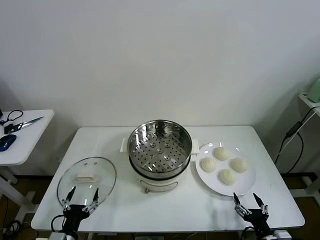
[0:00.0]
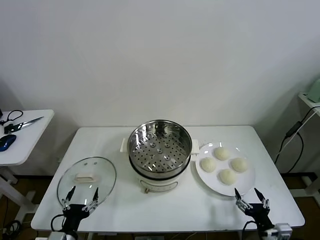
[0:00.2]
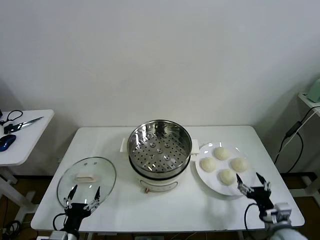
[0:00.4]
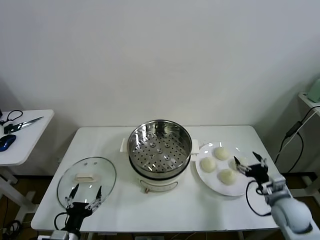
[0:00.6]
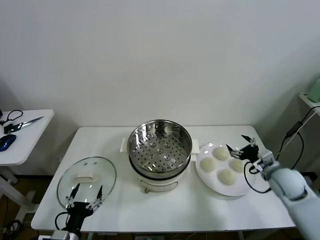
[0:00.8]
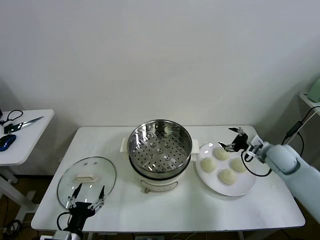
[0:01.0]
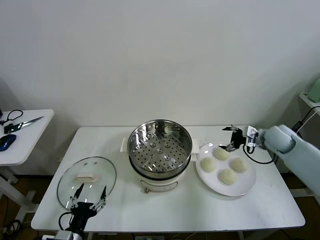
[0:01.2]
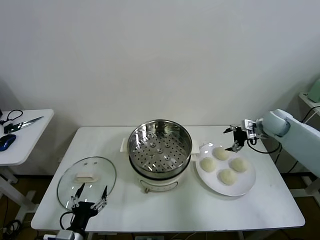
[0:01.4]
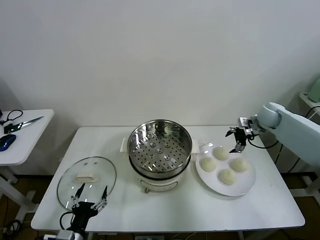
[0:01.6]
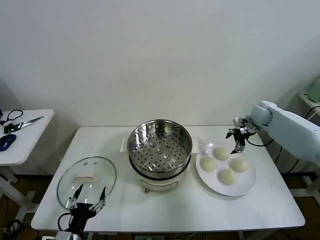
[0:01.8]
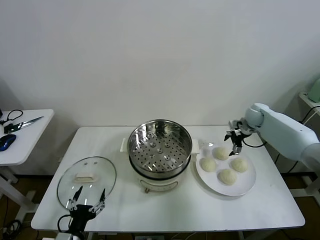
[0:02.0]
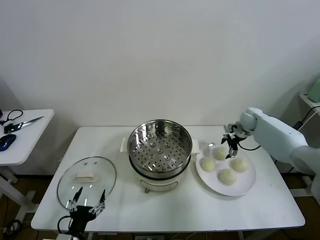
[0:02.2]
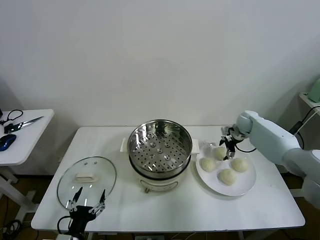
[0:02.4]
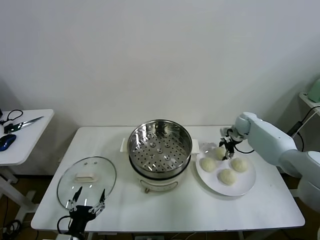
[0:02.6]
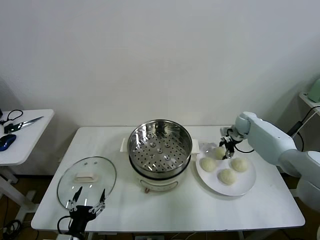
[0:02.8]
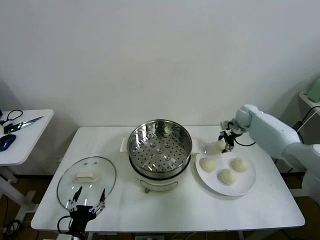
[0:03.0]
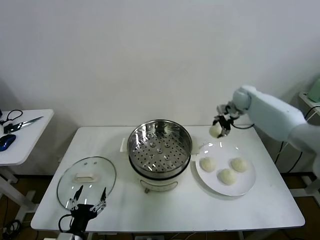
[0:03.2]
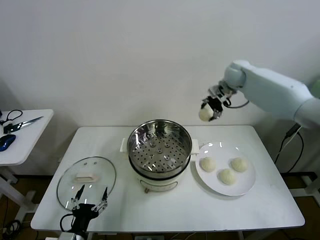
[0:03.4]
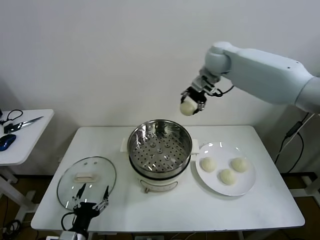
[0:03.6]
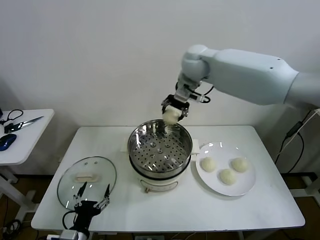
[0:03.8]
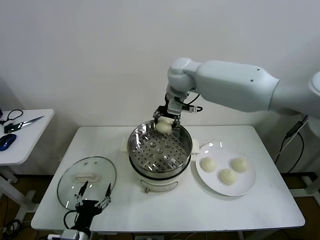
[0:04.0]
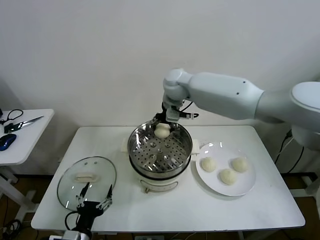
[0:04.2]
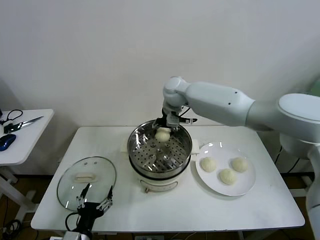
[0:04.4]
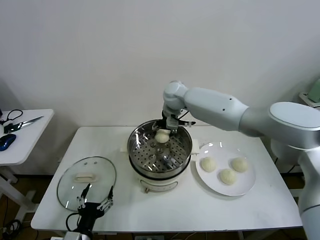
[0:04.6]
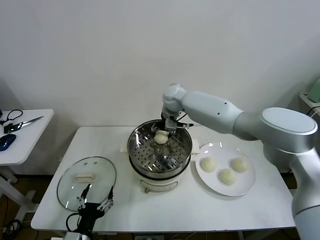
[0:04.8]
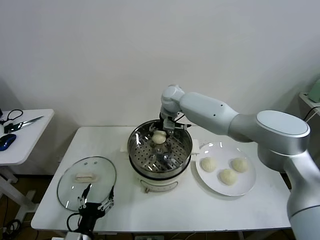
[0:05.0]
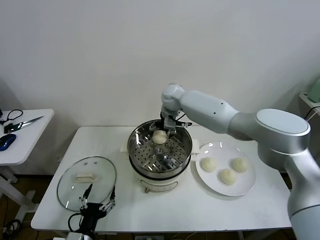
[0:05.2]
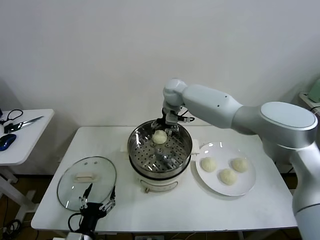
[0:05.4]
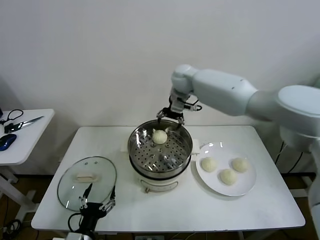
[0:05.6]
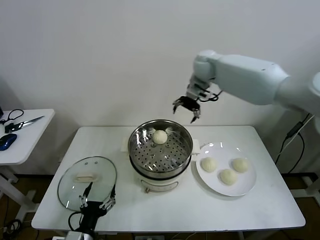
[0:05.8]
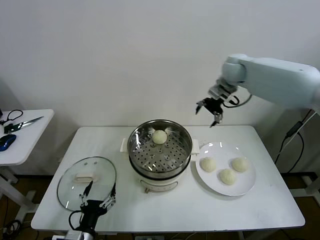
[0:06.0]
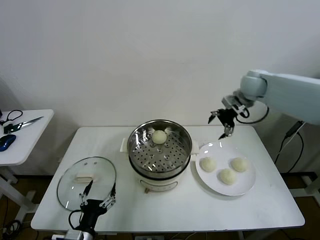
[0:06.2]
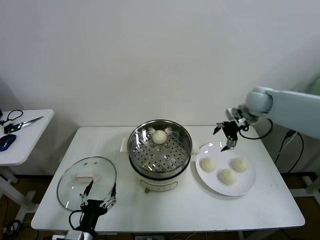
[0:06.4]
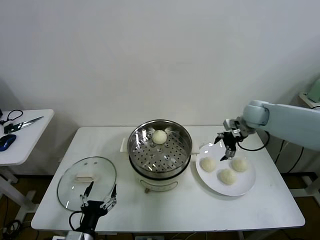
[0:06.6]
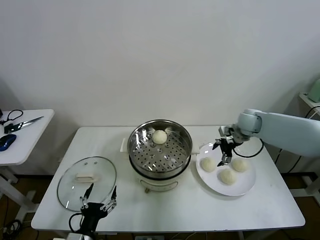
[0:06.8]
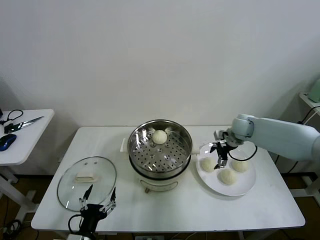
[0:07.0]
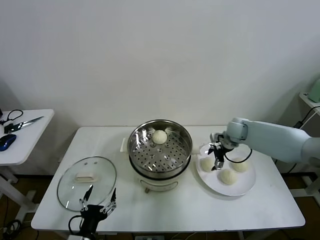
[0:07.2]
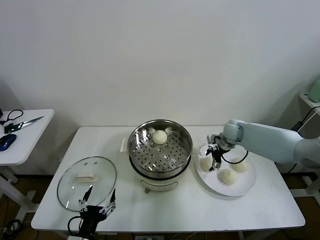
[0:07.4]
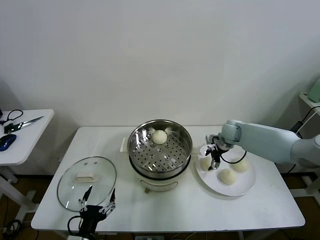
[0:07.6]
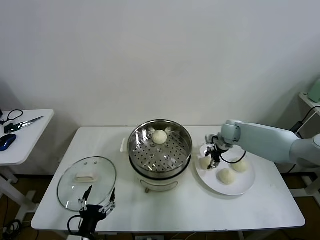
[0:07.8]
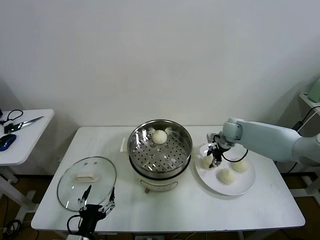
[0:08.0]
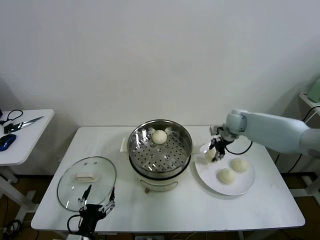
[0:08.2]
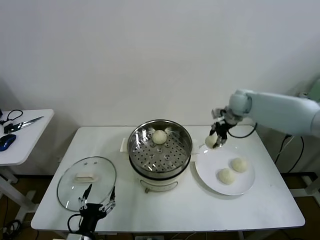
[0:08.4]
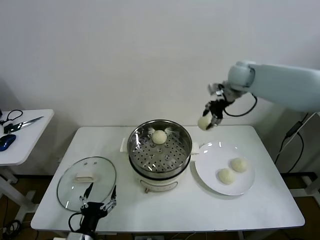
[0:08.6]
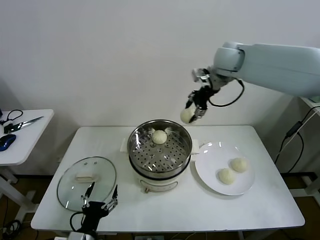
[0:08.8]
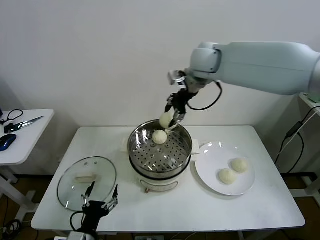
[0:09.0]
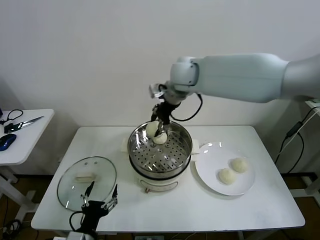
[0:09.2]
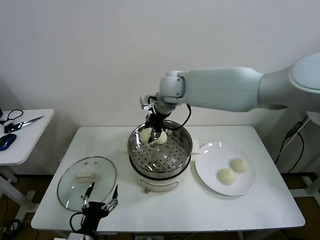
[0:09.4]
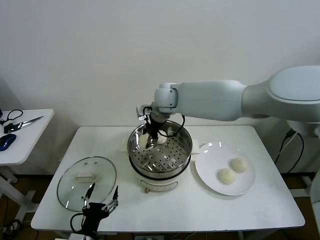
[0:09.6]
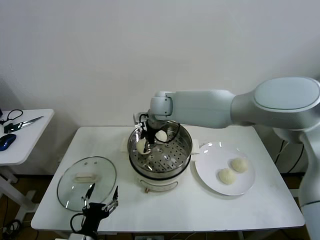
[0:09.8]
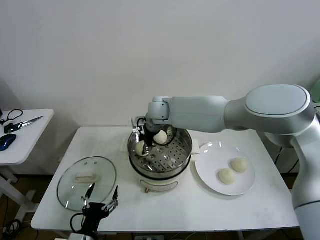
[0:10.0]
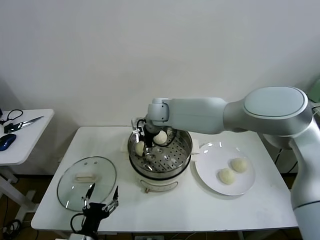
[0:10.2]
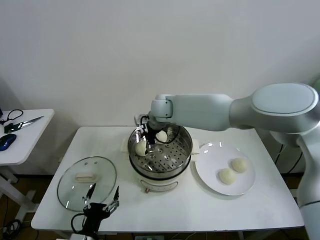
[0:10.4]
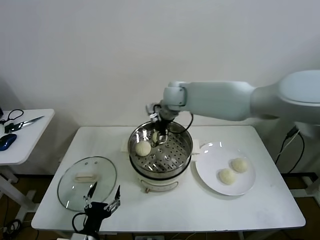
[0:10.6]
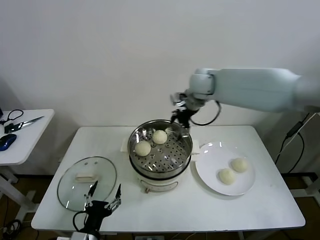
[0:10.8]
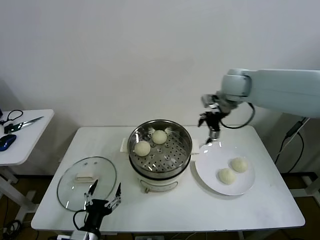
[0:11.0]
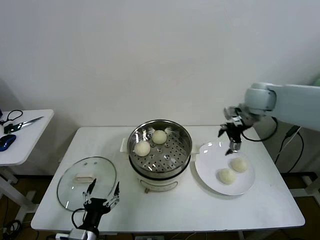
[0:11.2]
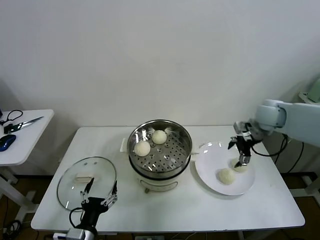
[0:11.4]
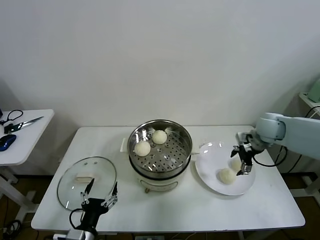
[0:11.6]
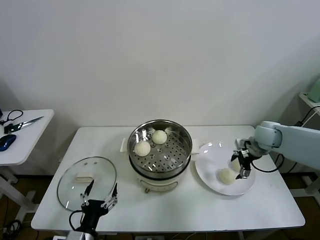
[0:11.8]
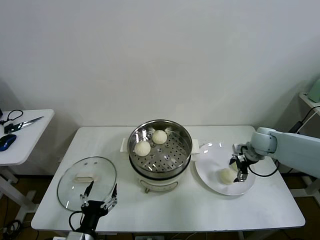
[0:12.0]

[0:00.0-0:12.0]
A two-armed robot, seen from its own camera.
Task of the whole recording: take steamed baozi put them in steamer then cover it.
Step, 0:00.0 to 0:02.6: Grasp the baozi in the plate with right gripper.
Step, 0:02.8 to 0:05.0: Place the baozi on the steamer with right gripper.
Step, 0:05.4 to 0:07.8: Grasp the baozi in the plate with right gripper.
Step, 0:08.0 to 0:10.4: Place the baozi on the steamer with right gripper.
0:01.6 to 0:03.0: The right gripper travels to the left and forward by roughly 10 cm, moves approximately 10 cm downward and comes back, and closes its fingers.
0:03.0 to 0:04.4: The right gripper heads to the left, covering approximately 30 cm.
0:04.4 to 0:06.0: The right gripper is displaced to the right by roughly 25 cm, and opens its fingers.
0:06.0 to 0:07.6: The right gripper heads downward, covering roughly 25 cm, and closes.
0:07.6 to 0:09.0: The right gripper is displaced upward and to the left by about 35 cm, and closes.
0:09.0 to 0:10.4: The right gripper shifts roughly 15 cm downward and to the left, and opens its fingers.
0:10.4 to 0:12.0: The right gripper moves to the right, approximately 35 cm.

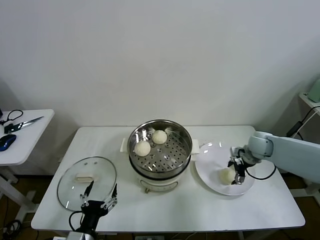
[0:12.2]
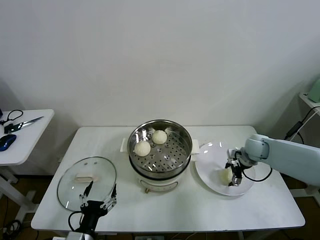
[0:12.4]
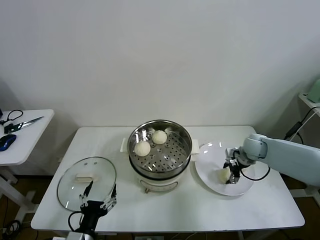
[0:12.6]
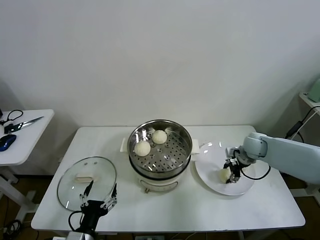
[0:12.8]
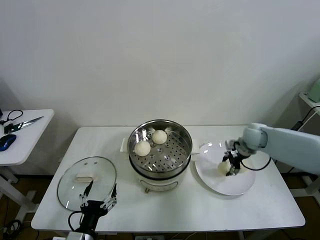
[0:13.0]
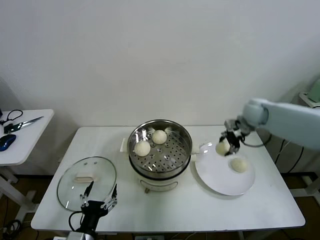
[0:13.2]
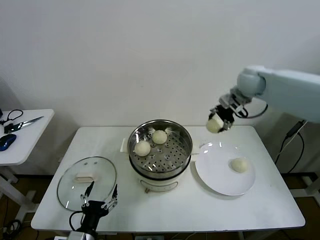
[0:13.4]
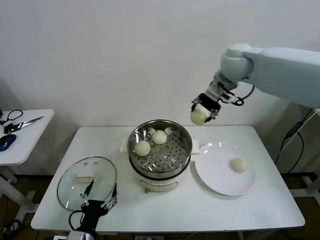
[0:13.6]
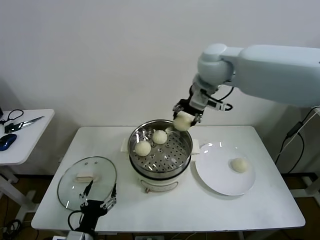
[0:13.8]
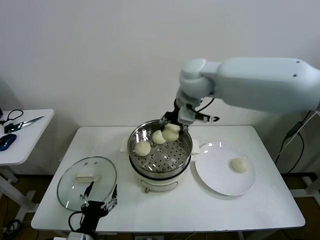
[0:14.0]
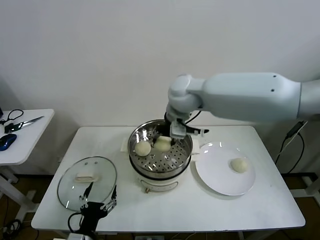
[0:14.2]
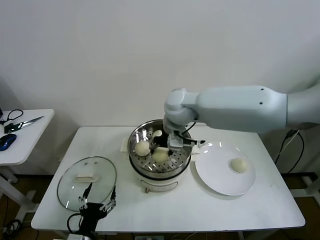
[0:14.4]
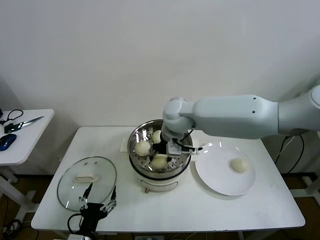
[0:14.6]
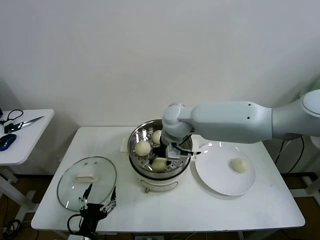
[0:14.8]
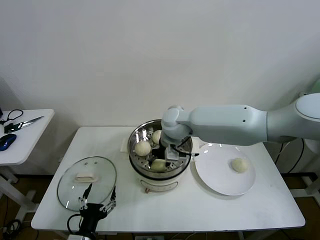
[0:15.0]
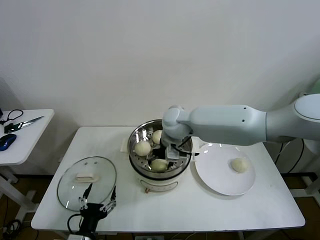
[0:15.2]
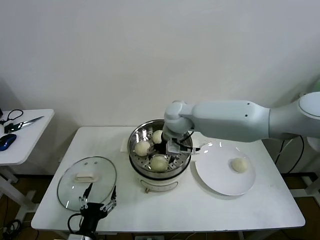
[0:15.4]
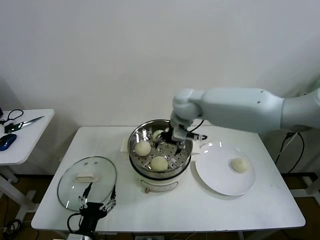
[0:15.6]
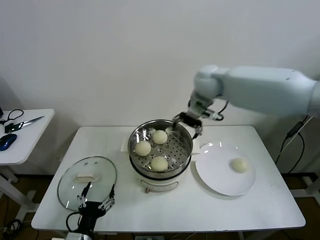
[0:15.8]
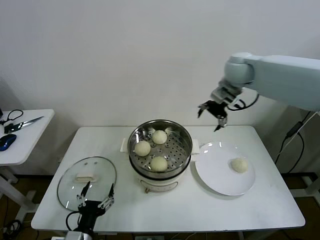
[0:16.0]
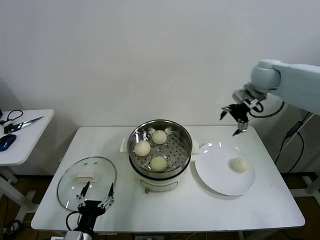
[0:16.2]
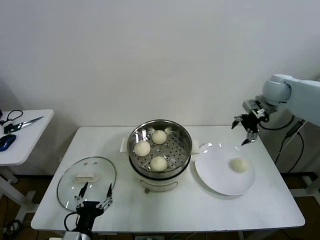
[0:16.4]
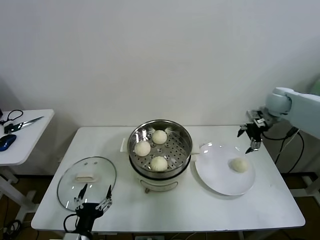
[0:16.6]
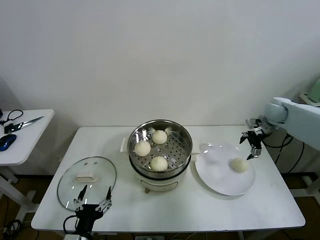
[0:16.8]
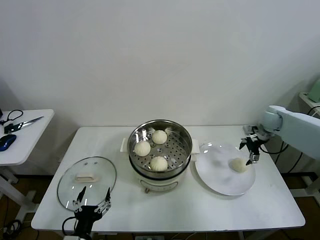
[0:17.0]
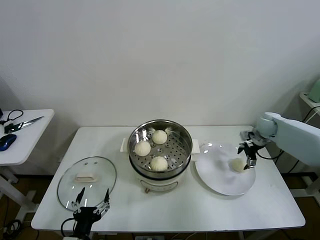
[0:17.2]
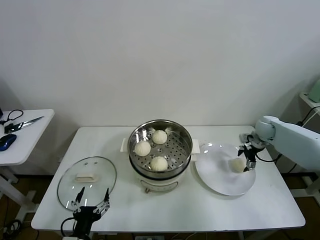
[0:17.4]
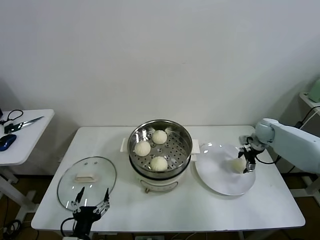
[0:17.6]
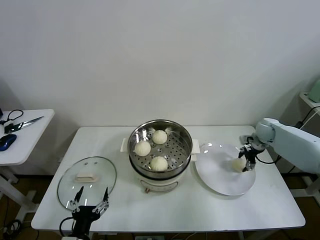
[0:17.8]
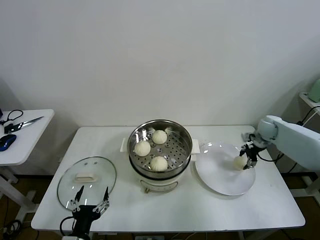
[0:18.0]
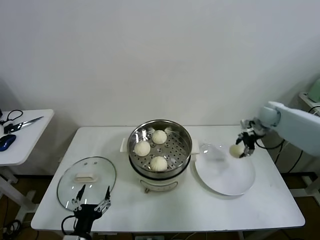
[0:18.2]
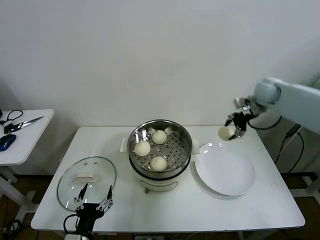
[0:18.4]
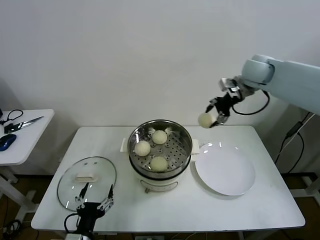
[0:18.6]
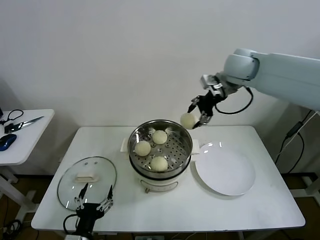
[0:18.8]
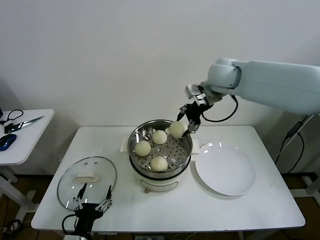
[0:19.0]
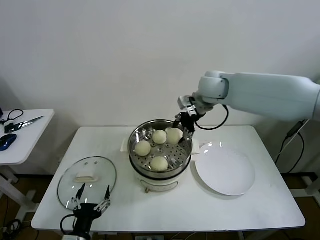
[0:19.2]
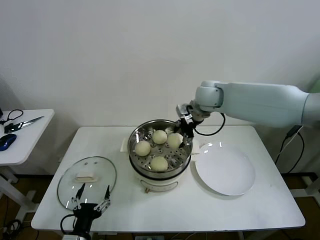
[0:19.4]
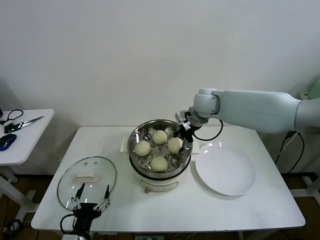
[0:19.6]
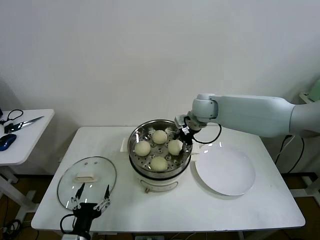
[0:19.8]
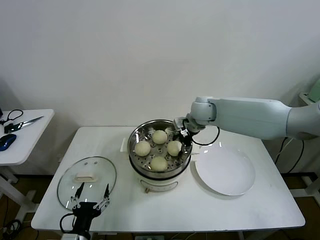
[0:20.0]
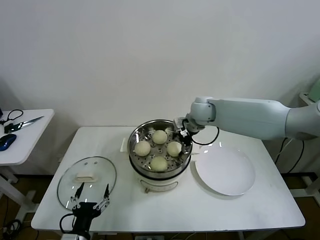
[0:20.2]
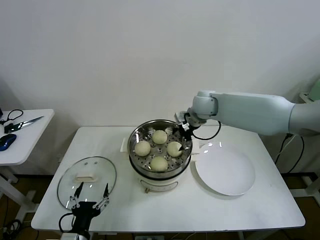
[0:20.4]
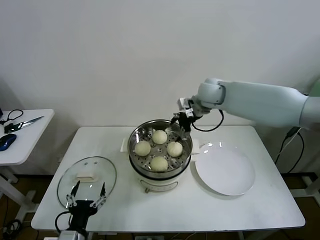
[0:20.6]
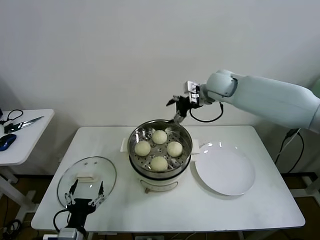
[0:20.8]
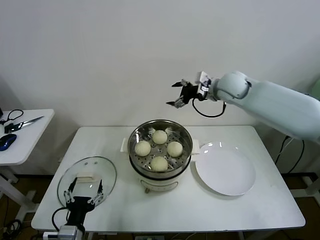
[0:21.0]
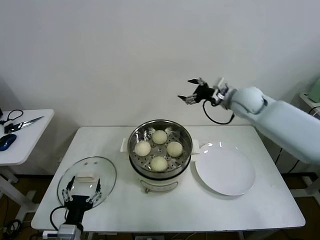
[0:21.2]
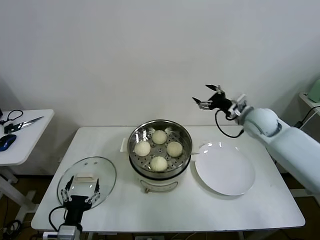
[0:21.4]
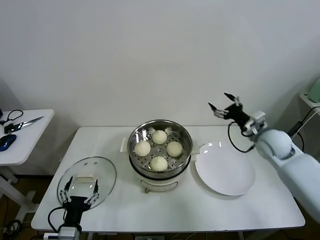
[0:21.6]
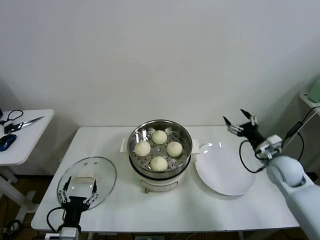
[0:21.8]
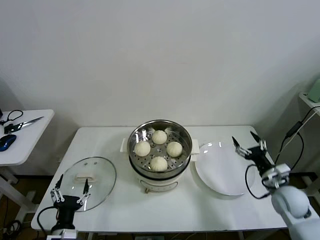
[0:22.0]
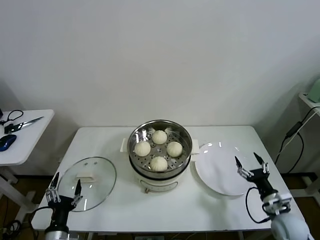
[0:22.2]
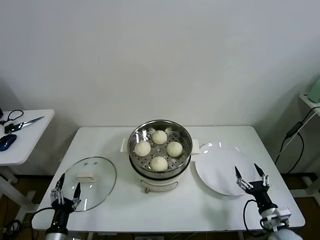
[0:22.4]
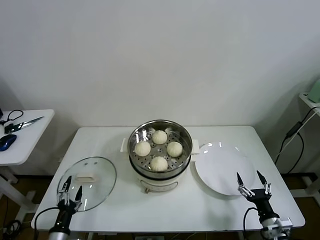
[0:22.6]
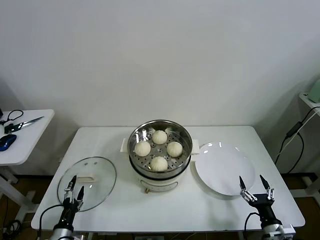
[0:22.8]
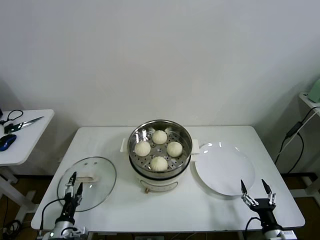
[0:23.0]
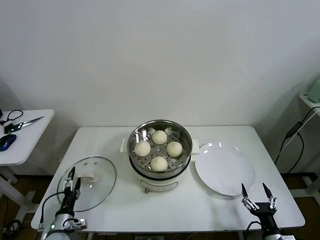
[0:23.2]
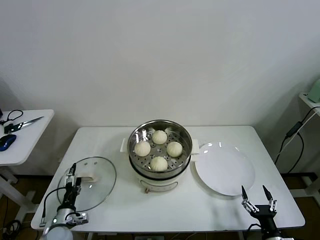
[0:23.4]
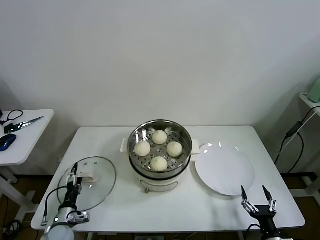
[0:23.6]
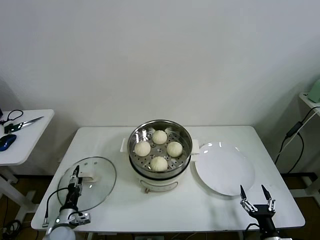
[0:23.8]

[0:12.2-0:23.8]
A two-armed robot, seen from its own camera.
Task of the whole recording: take steamed baozi put them in steamer then cover it.
Step, 0:12.8 to 0:15.2: Place the baozi on the steamer with right gripper.
Step, 0:15.4 to 0:17.8: Grasp the baozi in the plate with right gripper.
Step, 0:18.0 to 0:20.2: Place the baozi on the steamer with right gripper.
0:12.2 to 0:13.6: The right gripper moves upward and to the left, roughly 35 cm, and closes its fingers.
0:13.6 to 0:15.0: The right gripper travels downward and to the left by approximately 25 cm.
0:15.0 to 0:16.6: The right gripper moves to the right, about 35 cm, and opens up.
0:16.6 to 0:18.0: The right gripper moves downward, about 10 cm, and closes up.
0:18.0 to 0:19.4: The right gripper is displaced to the left and upward by approximately 35 cm.
0:19.4 to 0:21.0: The right gripper shifts some 5 cm to the right, travels downward and back again, some 5 cm each way, and opens its fingers.
0:21.0 to 0:22.4: The left gripper travels to the left and downward by approximately 10 cm. The right gripper travels downward, backward and to the right by about 50 cm.
0:22.4 to 0:23.8: The right gripper moves backward, some 10 cm. The left gripper heads forward and downward, covering about 10 cm.
